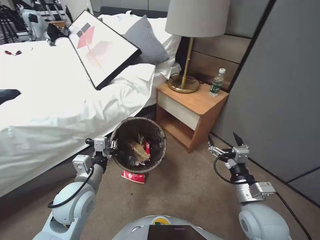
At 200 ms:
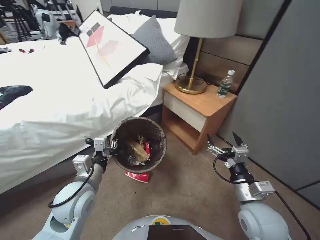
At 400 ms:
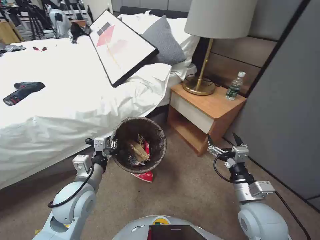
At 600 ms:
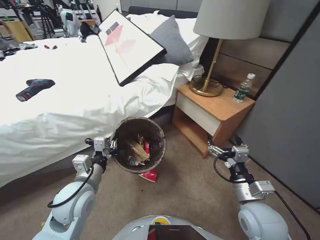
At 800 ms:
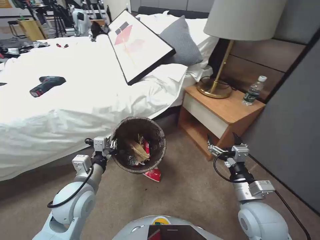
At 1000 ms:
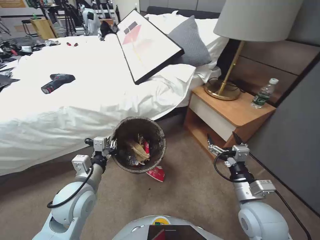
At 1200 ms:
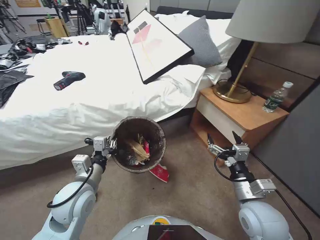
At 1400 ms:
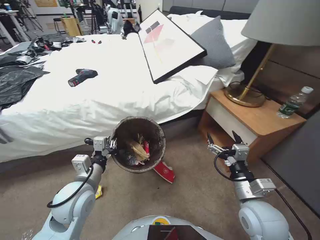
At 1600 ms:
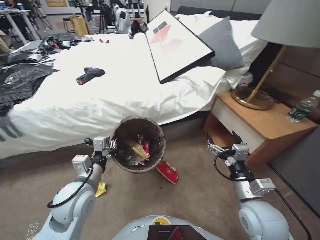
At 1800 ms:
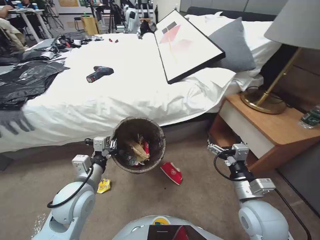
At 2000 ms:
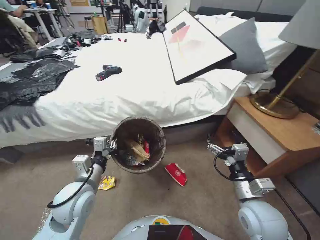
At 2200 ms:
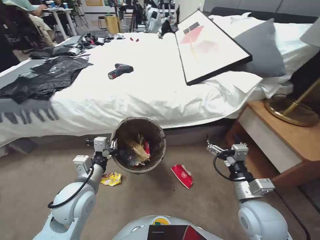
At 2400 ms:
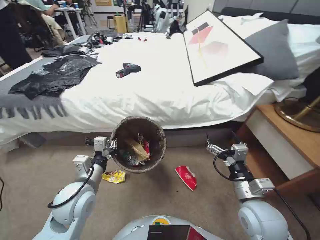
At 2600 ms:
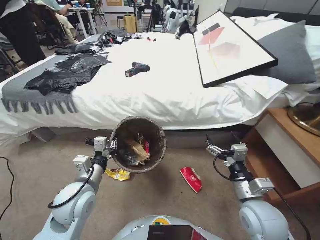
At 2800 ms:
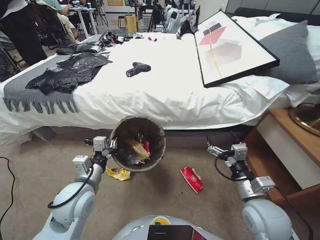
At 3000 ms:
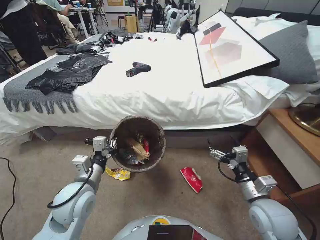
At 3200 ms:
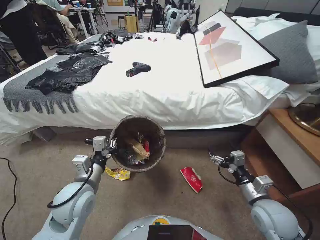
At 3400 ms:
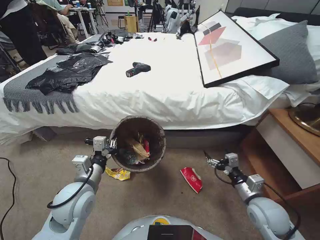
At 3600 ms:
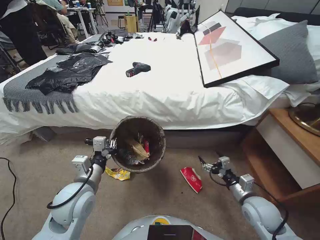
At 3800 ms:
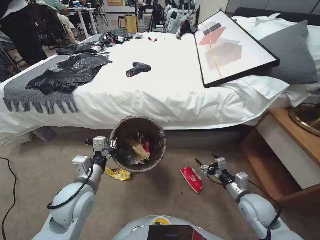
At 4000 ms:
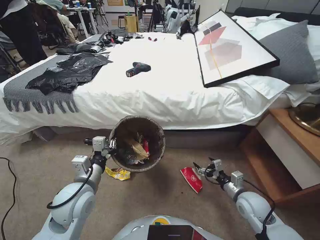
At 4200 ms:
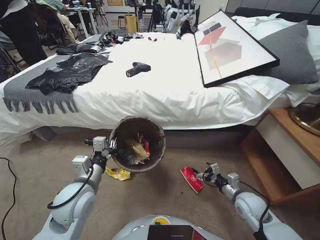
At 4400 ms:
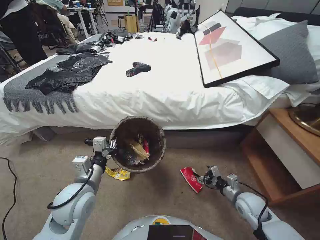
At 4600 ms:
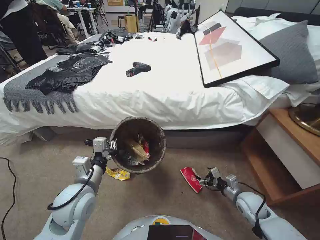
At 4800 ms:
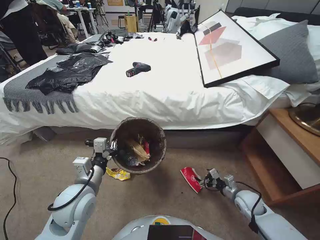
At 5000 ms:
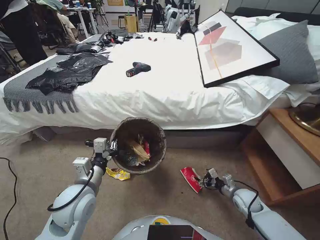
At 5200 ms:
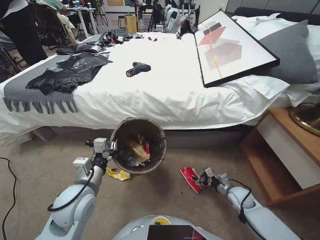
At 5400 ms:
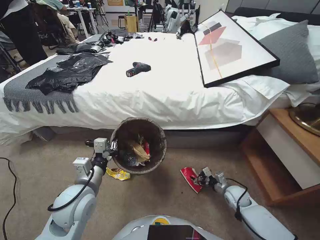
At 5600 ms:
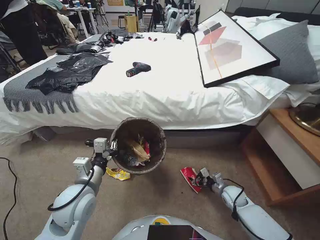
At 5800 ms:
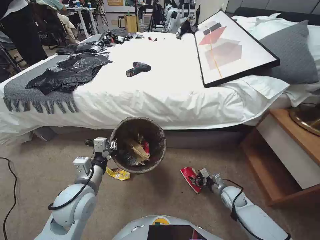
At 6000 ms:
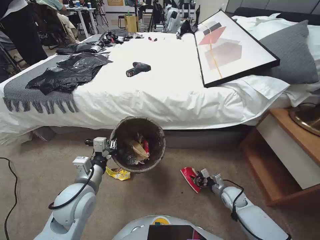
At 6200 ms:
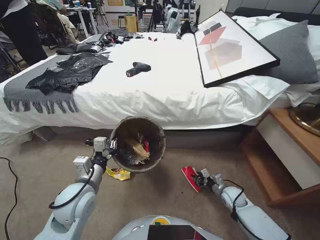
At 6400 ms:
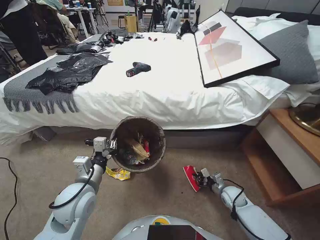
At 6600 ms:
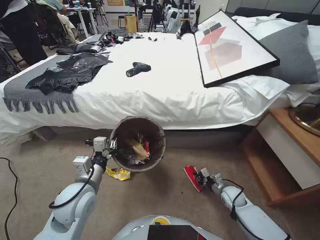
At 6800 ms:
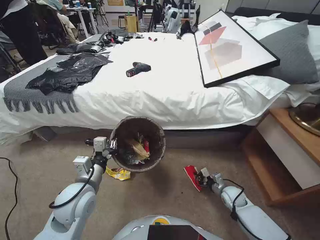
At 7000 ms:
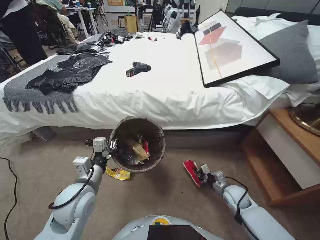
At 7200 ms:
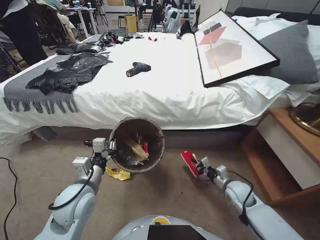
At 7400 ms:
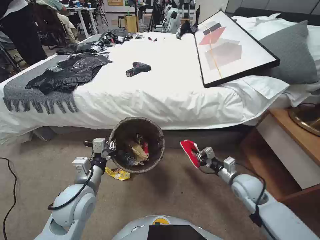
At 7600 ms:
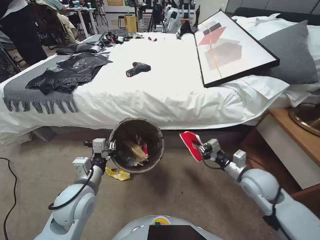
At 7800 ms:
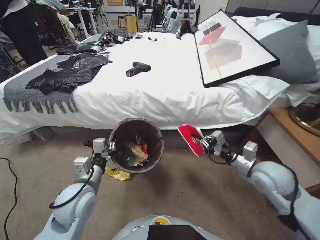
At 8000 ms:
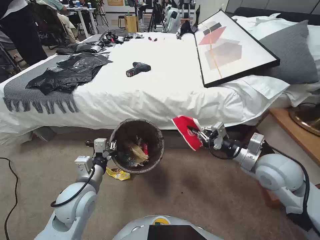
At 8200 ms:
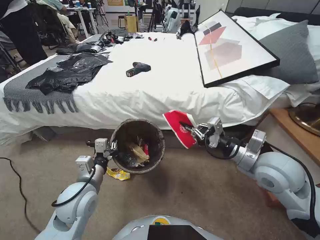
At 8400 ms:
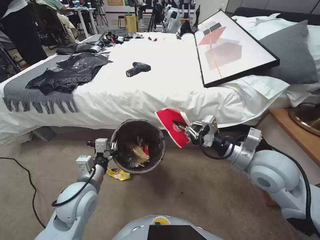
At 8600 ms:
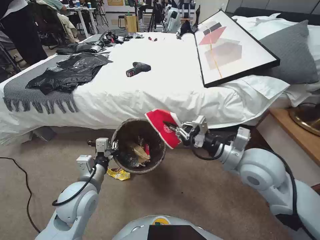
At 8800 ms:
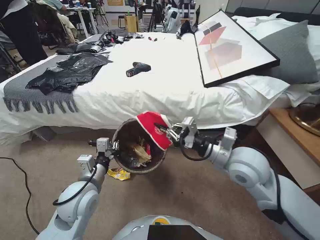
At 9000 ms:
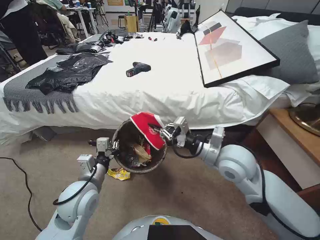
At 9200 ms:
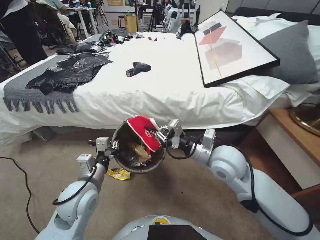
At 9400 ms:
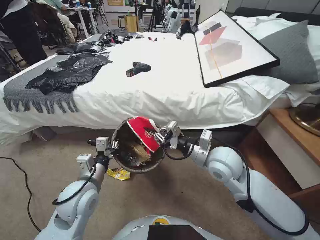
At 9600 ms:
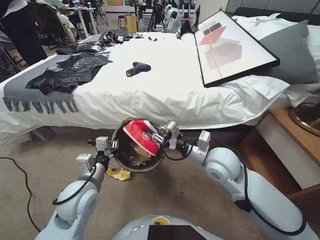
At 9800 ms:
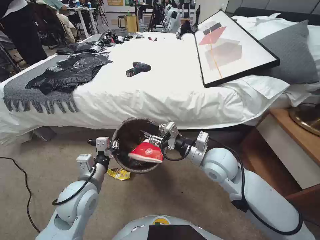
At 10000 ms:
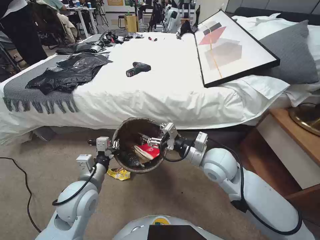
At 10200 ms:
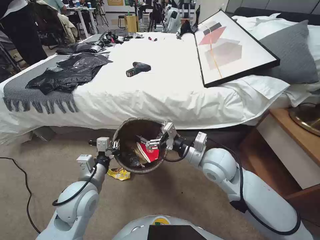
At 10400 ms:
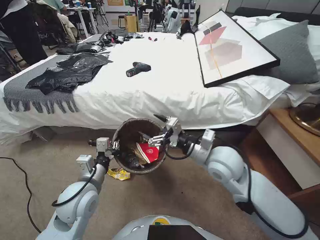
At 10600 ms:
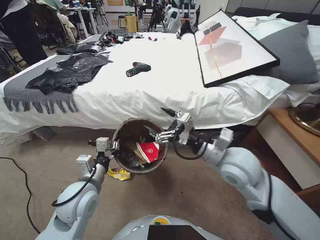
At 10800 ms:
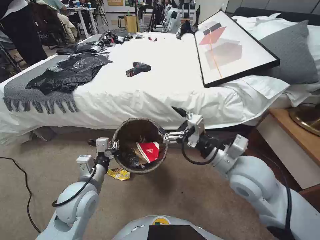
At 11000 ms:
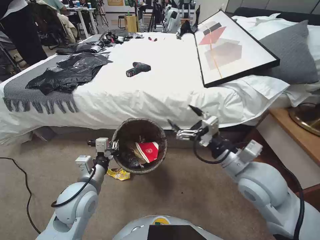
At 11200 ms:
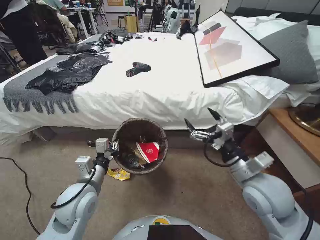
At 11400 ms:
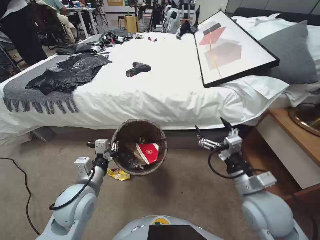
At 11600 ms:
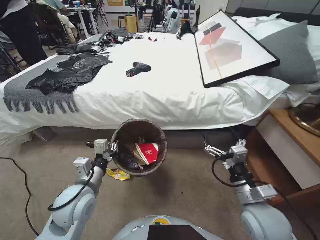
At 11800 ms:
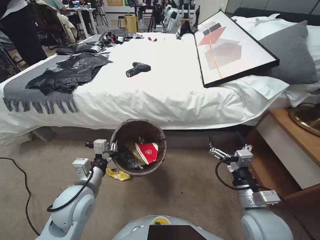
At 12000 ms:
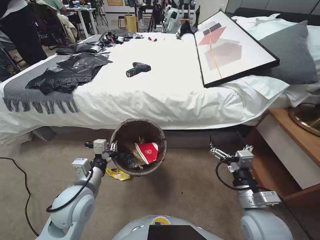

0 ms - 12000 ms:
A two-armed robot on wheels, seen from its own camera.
Task of the whole recording: Pick up the trash bin, then pick up the garbage from the floor and place it into the trash bin.
3000 ms - 4400 ms: The right gripper travels downward by approximately 15 cm.
4400 ms - 6000 ms: The right gripper shifts some 10 cm downward and forward.
6000 ms - 7600 ms: The right gripper moves upward, approximately 20 cm, and closes its fingers.
7600 ms - 9000 ms: The right gripper moves upward and to the left, roughly 20 cm.
9000 ms - 10400 ms: The right gripper opens up.
10400 ms - 12000 ms: The right gripper heads backward, to the right and downward, covering about 20 cm.

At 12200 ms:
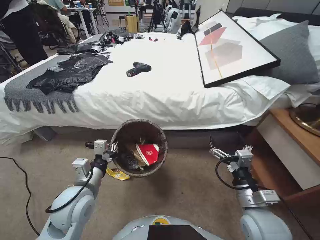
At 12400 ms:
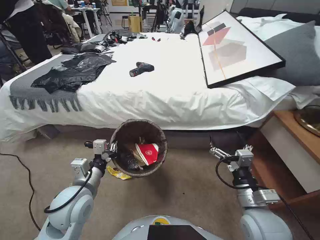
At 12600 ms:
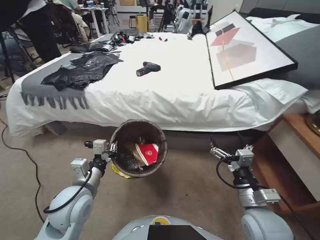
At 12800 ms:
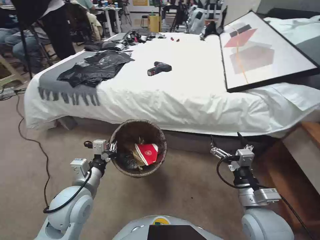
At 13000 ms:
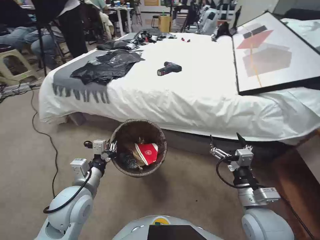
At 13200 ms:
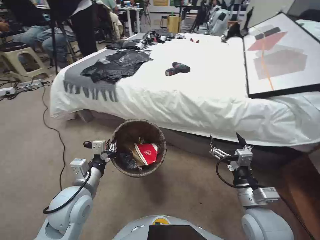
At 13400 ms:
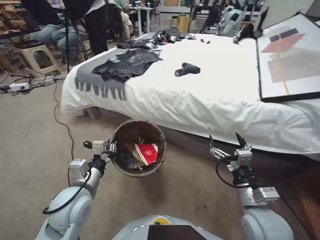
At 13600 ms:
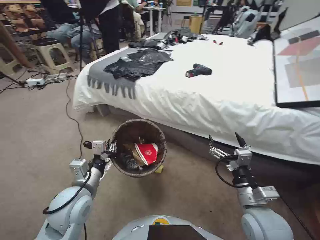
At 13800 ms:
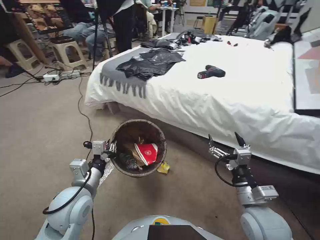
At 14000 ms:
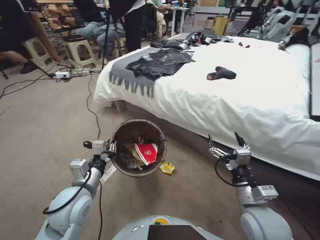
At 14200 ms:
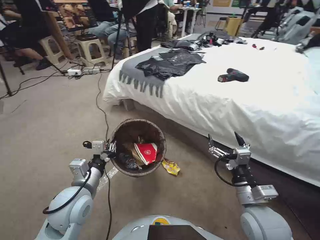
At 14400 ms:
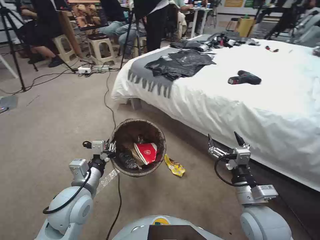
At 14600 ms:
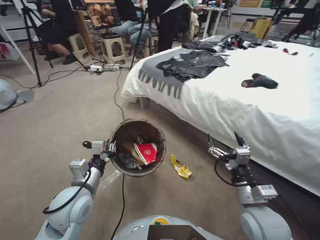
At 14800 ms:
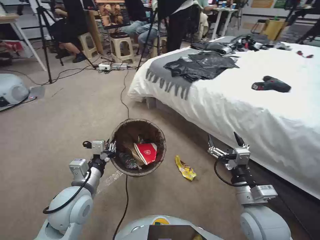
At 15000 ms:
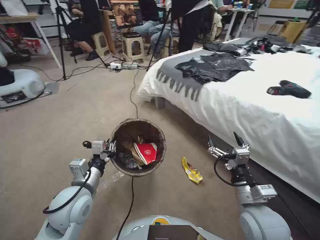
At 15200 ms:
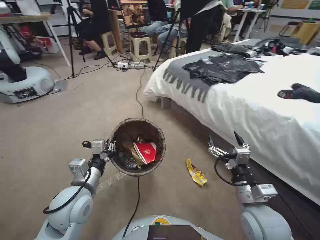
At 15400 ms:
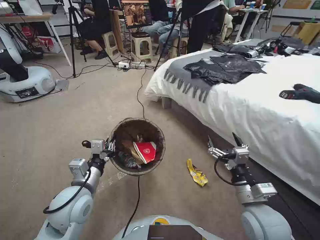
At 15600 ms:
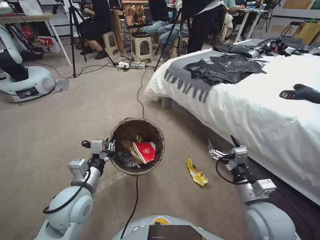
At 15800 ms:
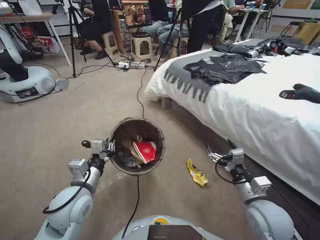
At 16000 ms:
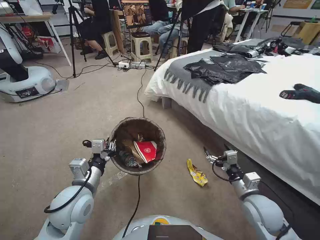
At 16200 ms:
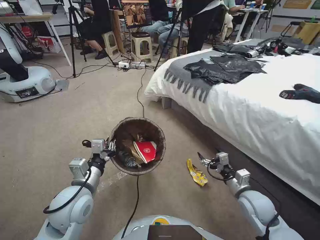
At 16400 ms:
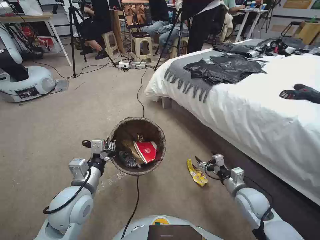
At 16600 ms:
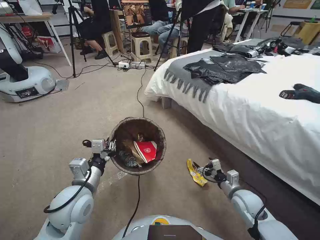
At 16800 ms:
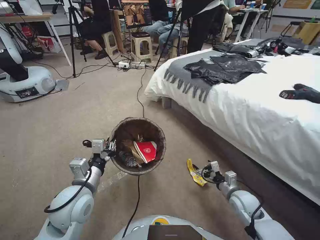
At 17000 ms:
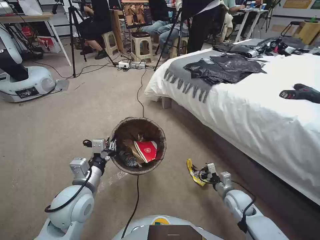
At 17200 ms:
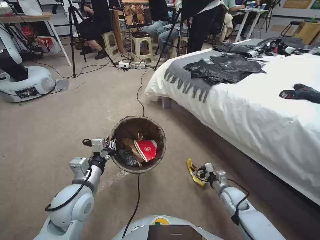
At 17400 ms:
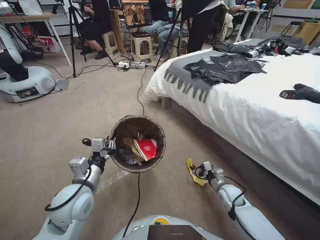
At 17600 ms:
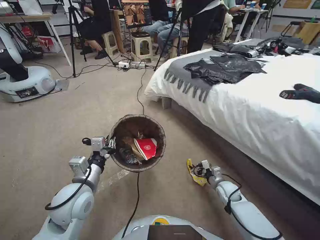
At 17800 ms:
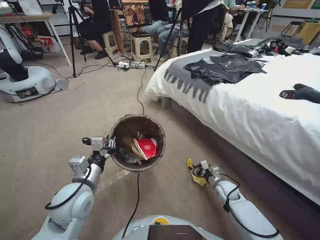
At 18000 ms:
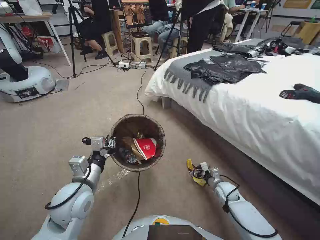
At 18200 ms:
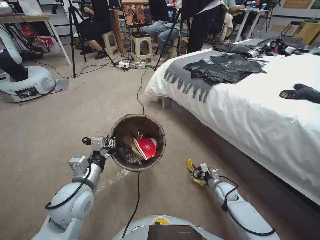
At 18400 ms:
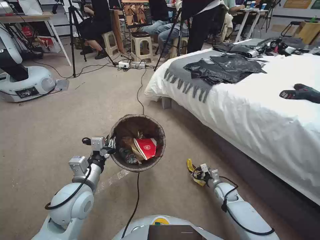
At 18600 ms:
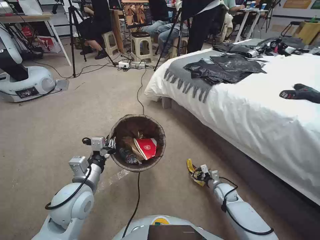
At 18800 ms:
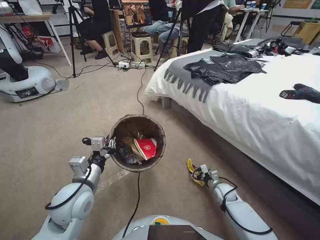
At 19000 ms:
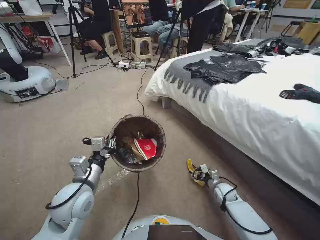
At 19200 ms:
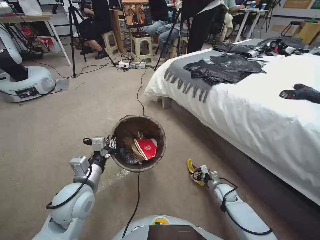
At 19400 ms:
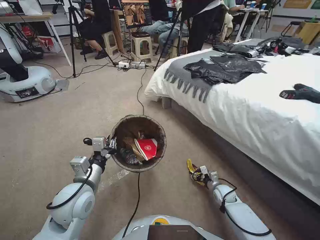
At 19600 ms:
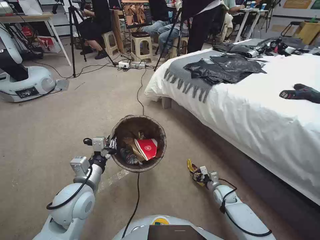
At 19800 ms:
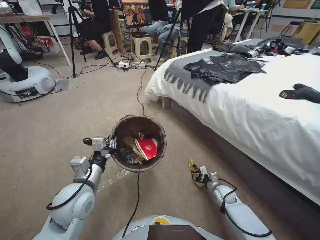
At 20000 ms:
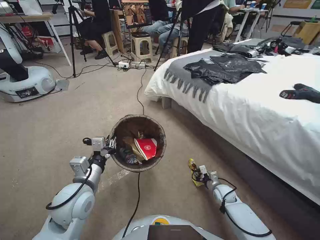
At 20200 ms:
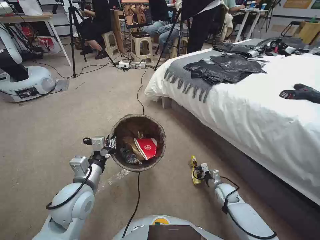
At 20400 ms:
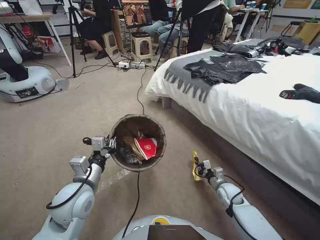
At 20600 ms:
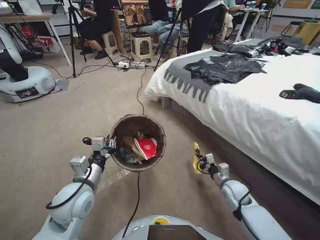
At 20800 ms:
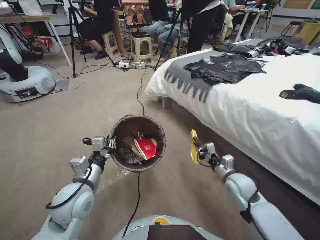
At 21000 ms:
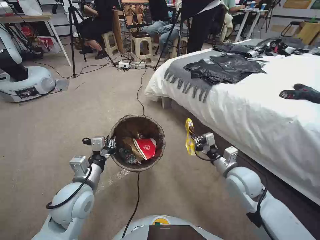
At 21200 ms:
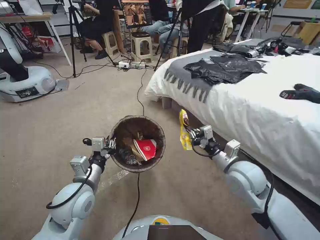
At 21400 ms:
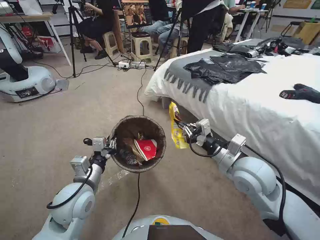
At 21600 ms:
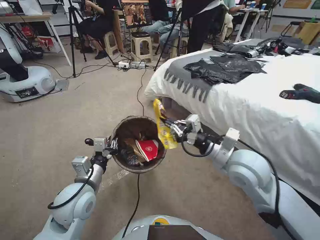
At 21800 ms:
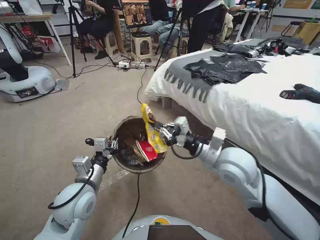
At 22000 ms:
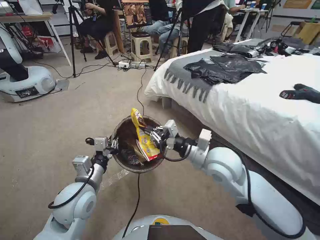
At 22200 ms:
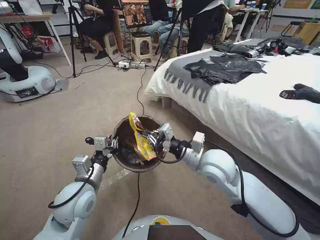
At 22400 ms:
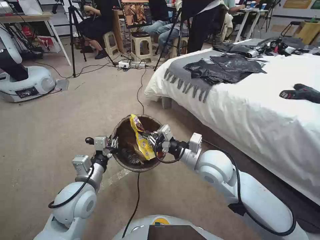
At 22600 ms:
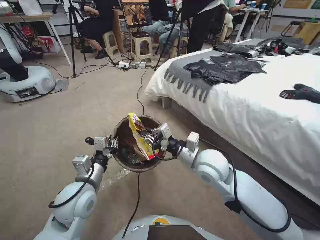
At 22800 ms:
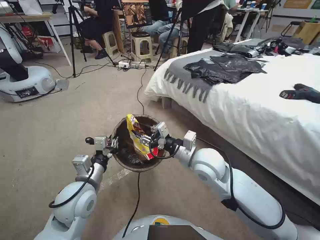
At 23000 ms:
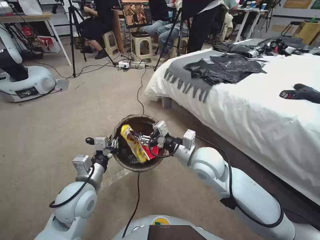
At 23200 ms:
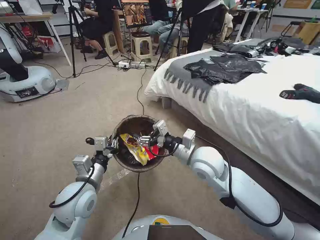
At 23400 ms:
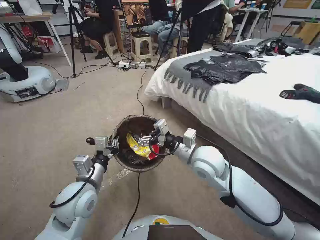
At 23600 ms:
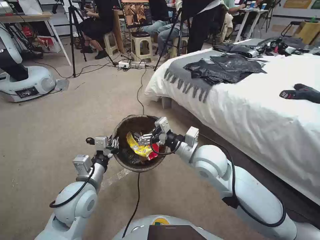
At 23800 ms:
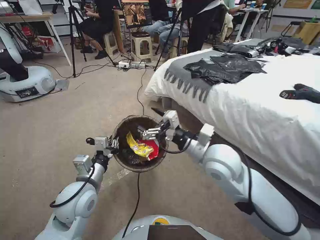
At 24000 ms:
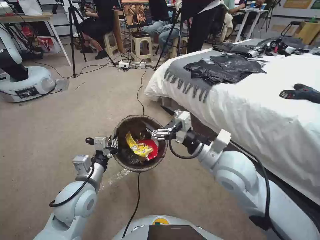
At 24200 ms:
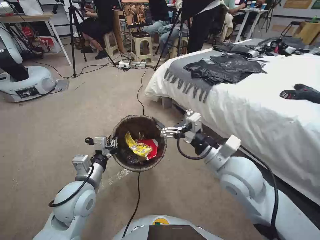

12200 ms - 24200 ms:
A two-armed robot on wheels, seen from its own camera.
Task of the whole recording: Pick up the trash bin, then pick up the garbage from the floor and place it into the trash bin.
15200 ms - 16600 ms: The right gripper heads downward, forward and to the right, covering approximately 15 cm.
16600 ms - 18200 ms: The right gripper travels downward and forward by about 15 cm.
18200 ms - 19800 ms: The right gripper closes up.
19800 ms - 21200 ms: The right gripper travels upward by approximately 30 cm, and closes its fingers.
21200 ms - 22600 ms: The right gripper moves to the left, some 10 cm.
22600 ms - 24200 ms: The right gripper ends up roughly 5 cm from where it was, and opens up.
